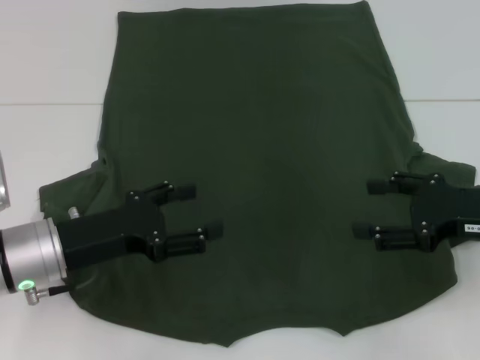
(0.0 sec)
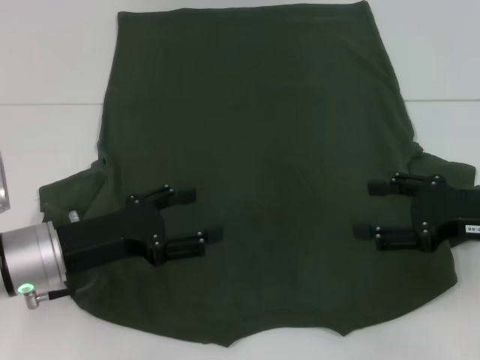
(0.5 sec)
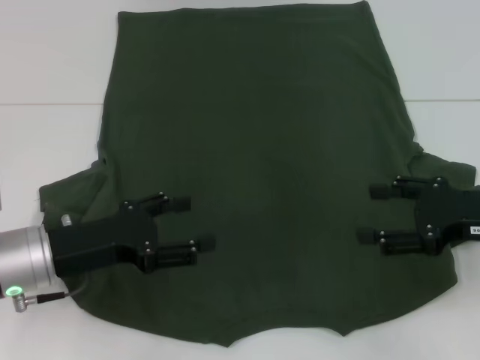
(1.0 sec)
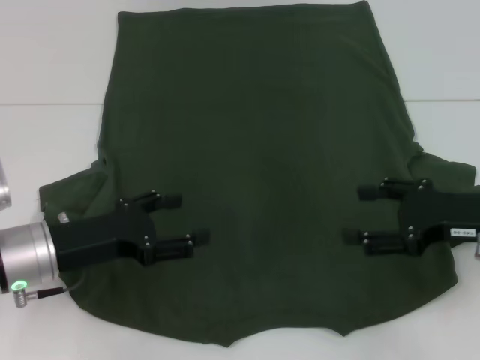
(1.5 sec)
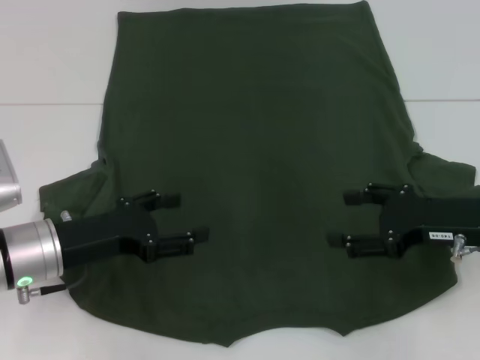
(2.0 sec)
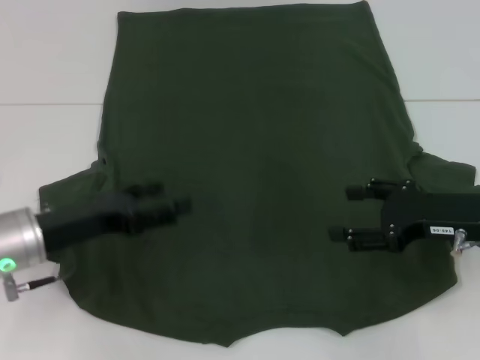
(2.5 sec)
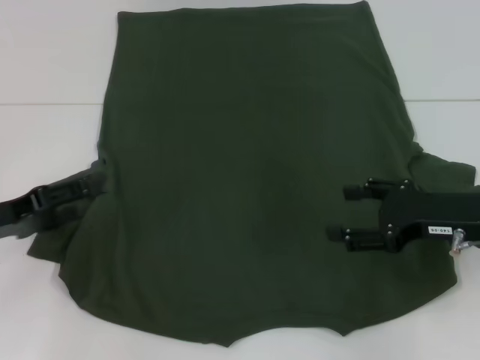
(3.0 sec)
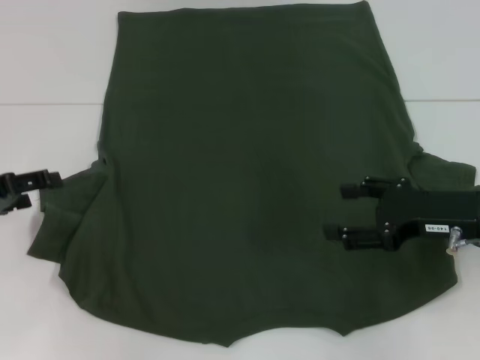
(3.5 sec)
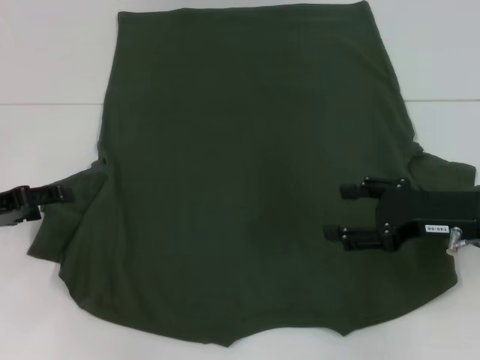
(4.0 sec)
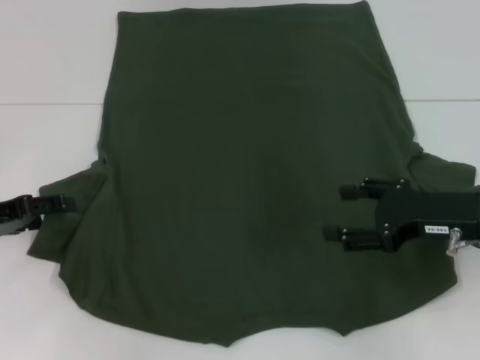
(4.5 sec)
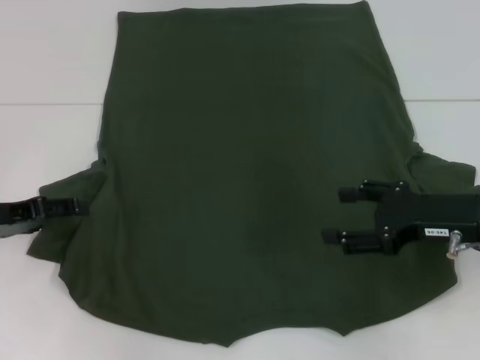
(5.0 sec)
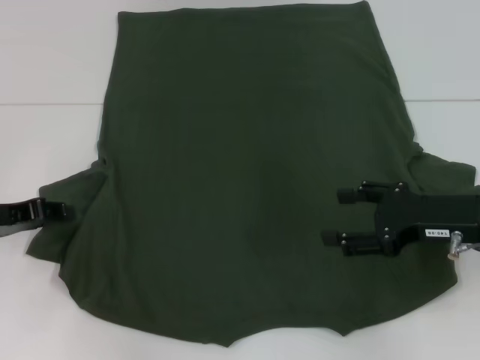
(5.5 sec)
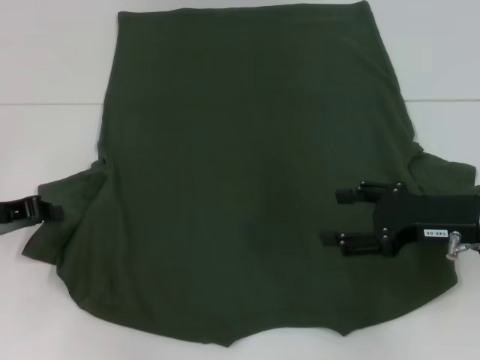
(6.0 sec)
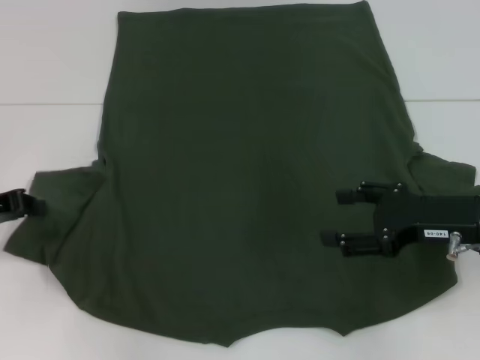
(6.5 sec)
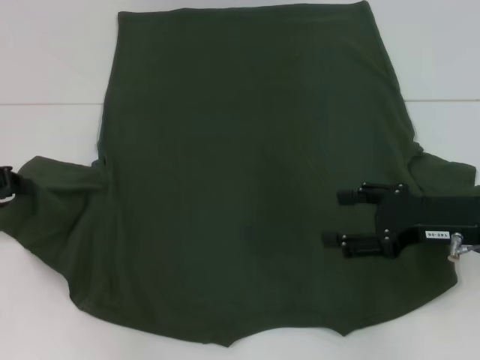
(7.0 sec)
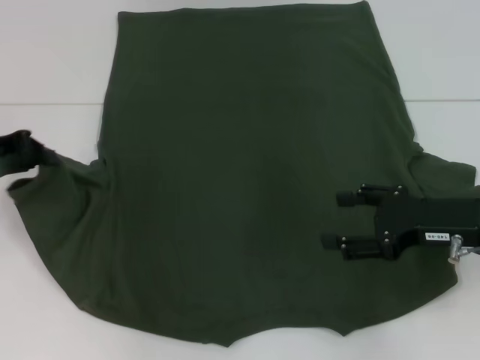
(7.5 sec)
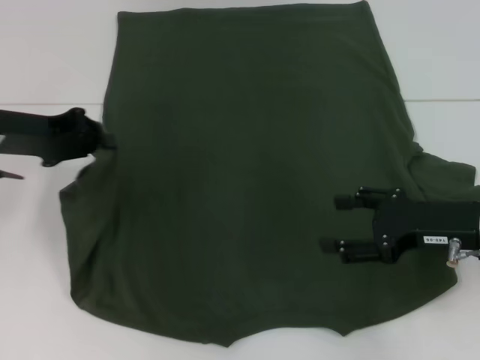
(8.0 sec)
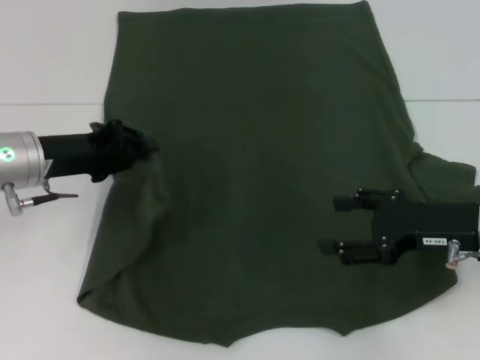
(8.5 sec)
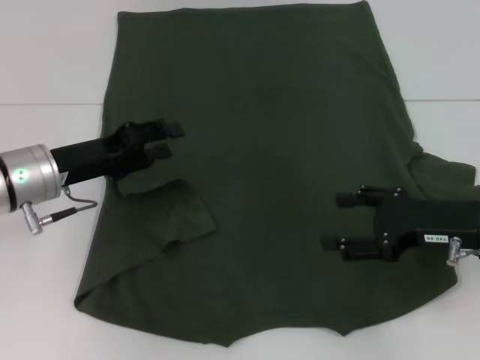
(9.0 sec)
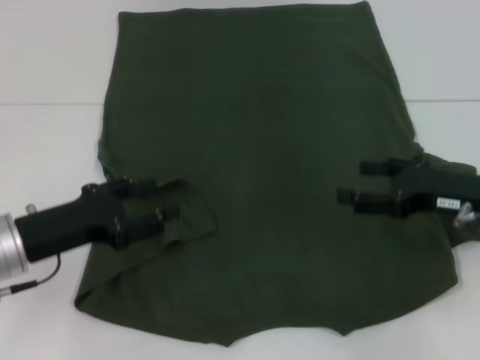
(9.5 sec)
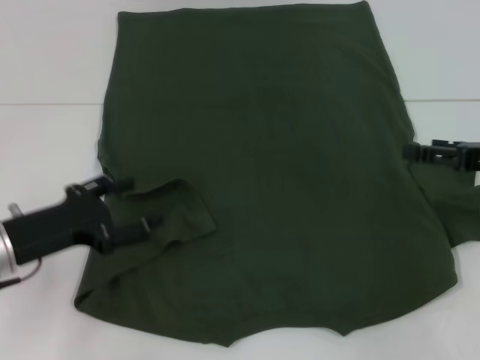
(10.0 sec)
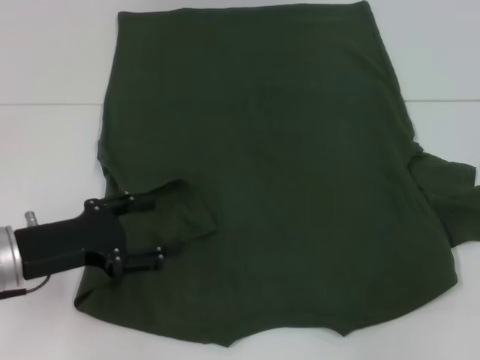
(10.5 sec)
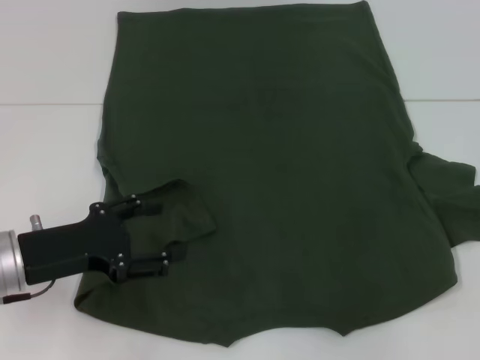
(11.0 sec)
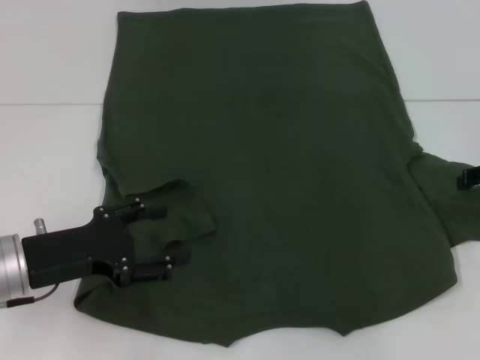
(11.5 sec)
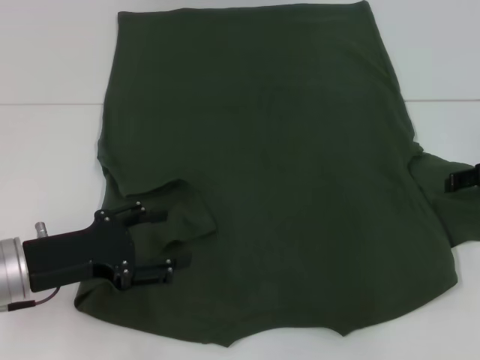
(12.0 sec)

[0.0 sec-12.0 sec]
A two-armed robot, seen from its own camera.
Step, 0.0 sec to 9.0 sec: Fold the bottom left sleeve with your left hand.
0.0 sec to 2.0 sec: The grippers move only a little.
2.0 sec to 4.0 sec: The left gripper heads to the left, covering about 10 cm.
4.0 sec to 6.0 sec: The left gripper closes its fingers.
6.0 sec to 8.0 sec: The left gripper moves upward and forward, approximately 10 cm.
8.0 sec to 10.0 sec: The right gripper shifts some 5 cm to the right, while the left gripper heads backward and downward, covering roughly 15 cm, and opens its fingers.
10.0 sec to 12.0 sec: The right gripper shifts approximately 5 cm forward.

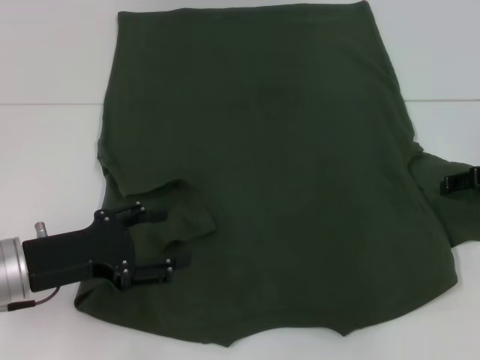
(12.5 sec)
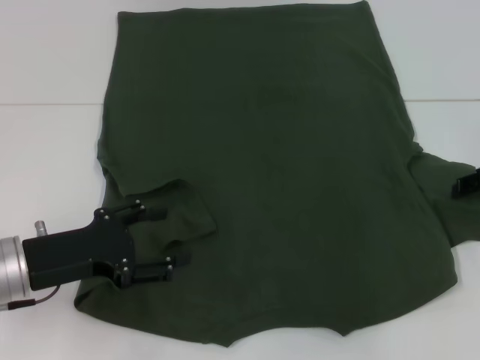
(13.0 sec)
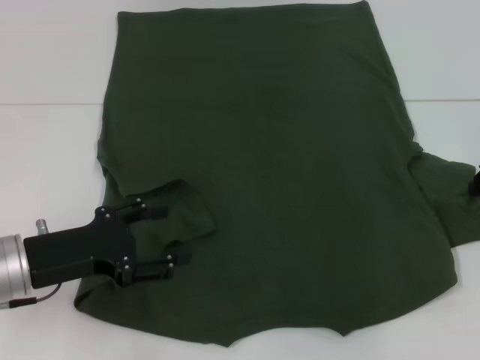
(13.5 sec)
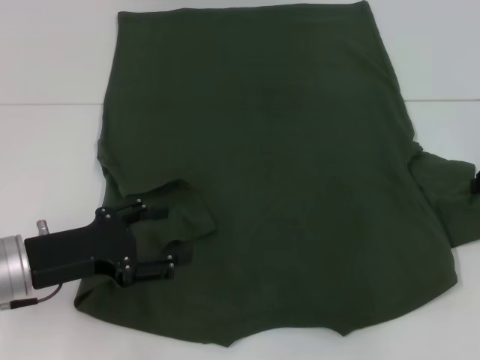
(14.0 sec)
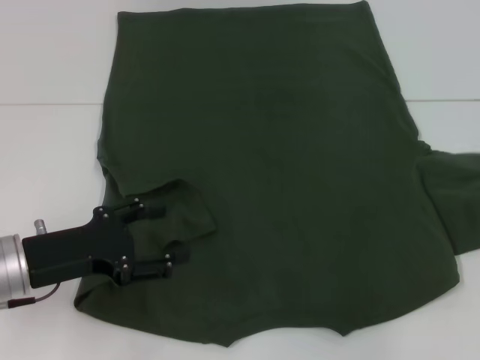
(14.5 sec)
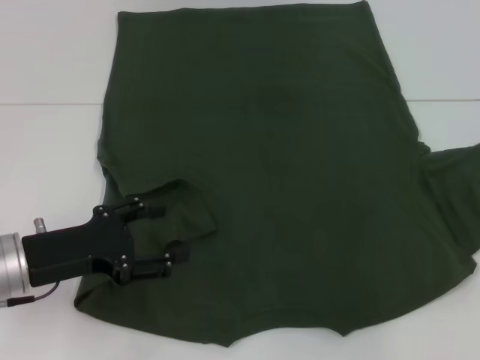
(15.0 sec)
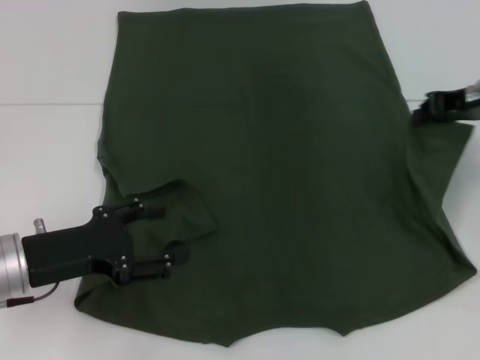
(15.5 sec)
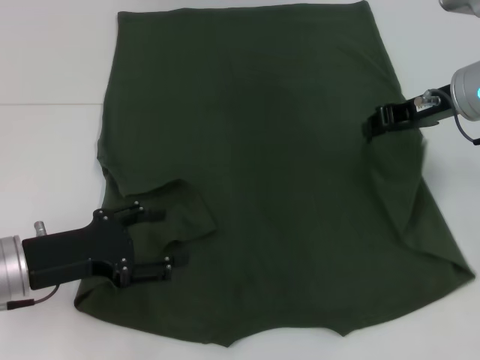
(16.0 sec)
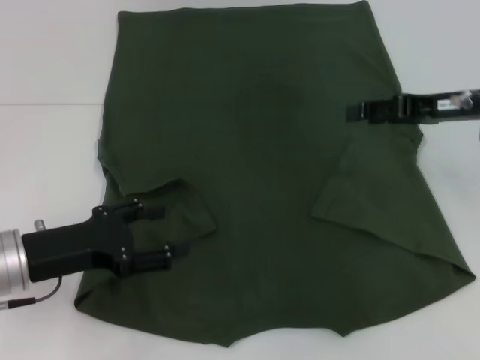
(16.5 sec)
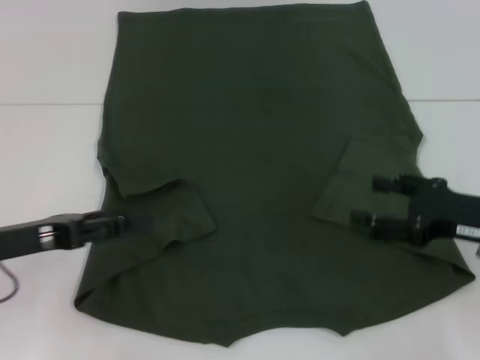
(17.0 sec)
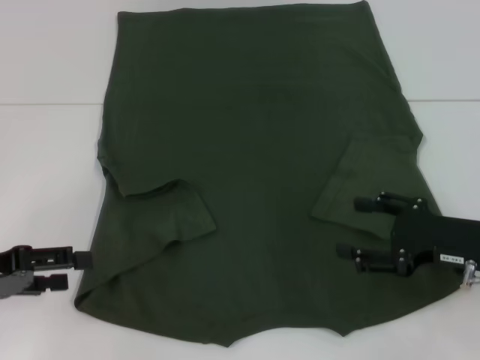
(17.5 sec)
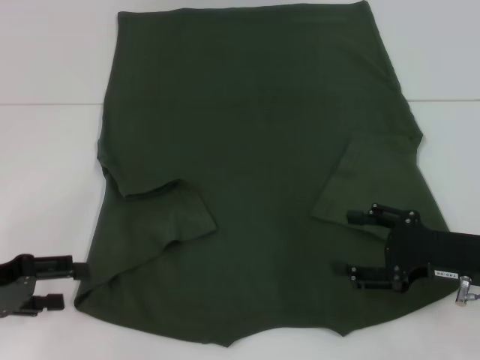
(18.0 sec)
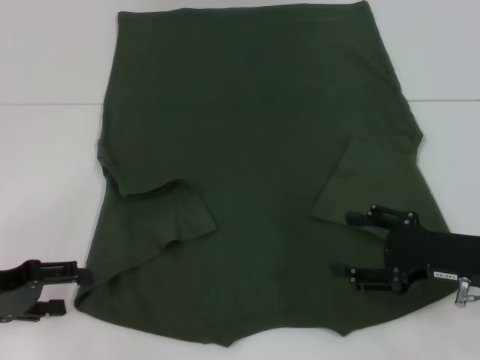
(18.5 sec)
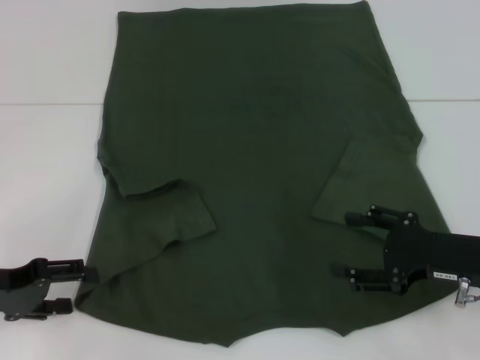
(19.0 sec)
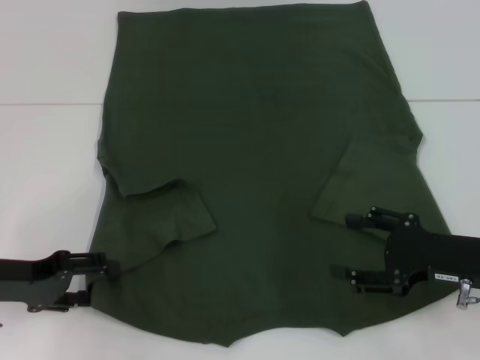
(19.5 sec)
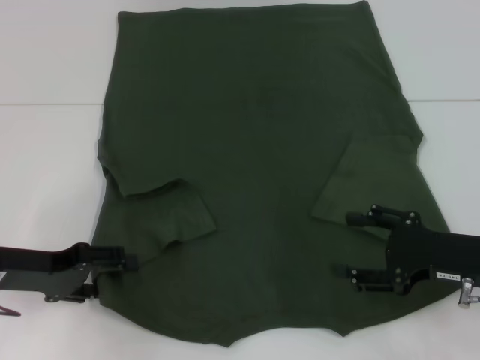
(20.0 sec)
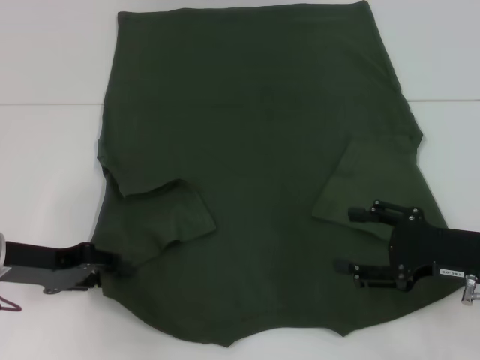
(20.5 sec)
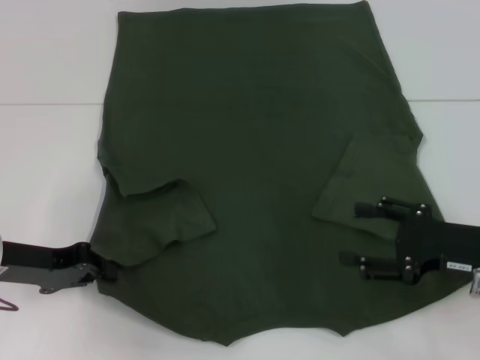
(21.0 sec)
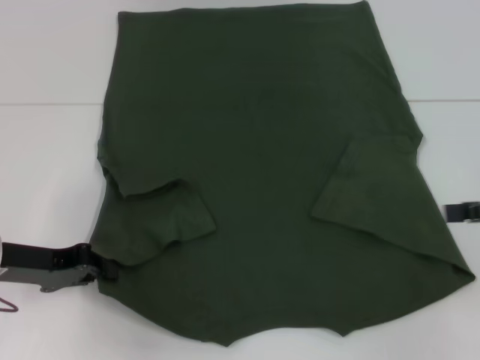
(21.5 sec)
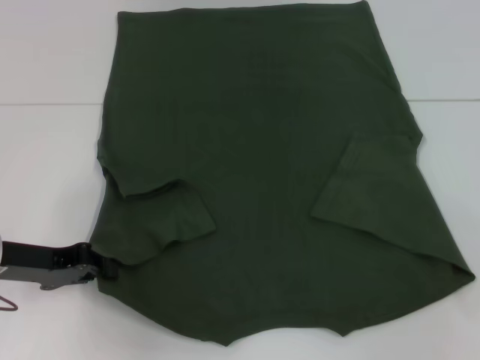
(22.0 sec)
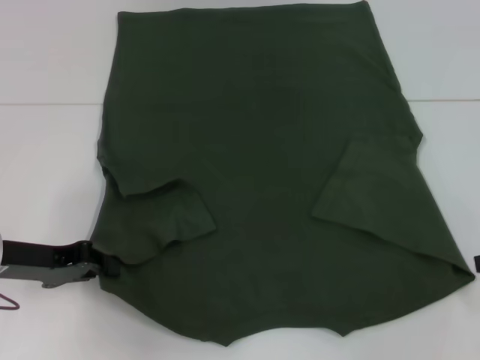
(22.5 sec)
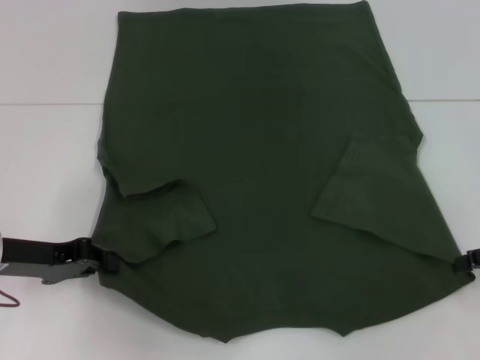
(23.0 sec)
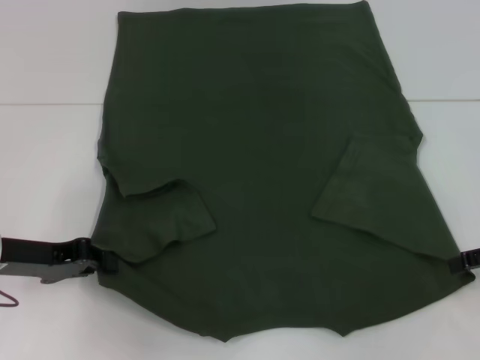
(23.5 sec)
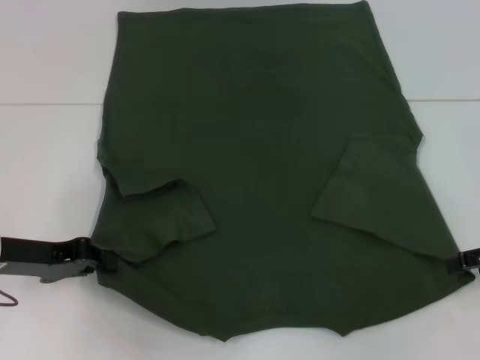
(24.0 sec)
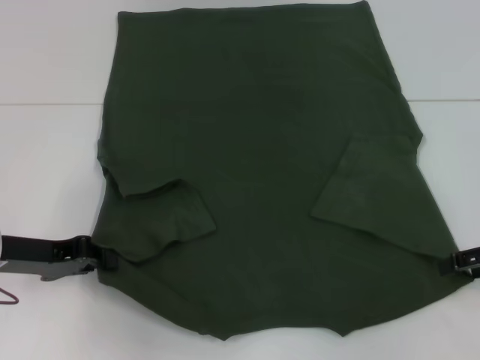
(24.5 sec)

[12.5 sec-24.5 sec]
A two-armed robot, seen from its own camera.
Step, 12.5 sec to 16.5 sec: Fold the bottom right sleeve with your right hand.
Step, 17.0 sec to 22.5 sec: Grab the bottom left corner with your left hand.
12.5 sec to 14.5 sec: The right gripper closes its fingers.
14.5 sec to 16.5 sec: The right gripper moves to the left, approximately 10 cm, and opens.
16.5 sec to 18.5 sec: The left gripper shifts approximately 10 cm to the left. The right gripper travels backward and downward by some 15 cm, and opens up.
18.5 sec to 20.5 sec: The left gripper shifts by roughly 5 cm.
20.5 sec to 22.5 sec: The left gripper closes. The right gripper travels to the right and upward by roughly 15 cm.
22.5 sec to 24.5 sec: There are only small adjustments of the grippers.

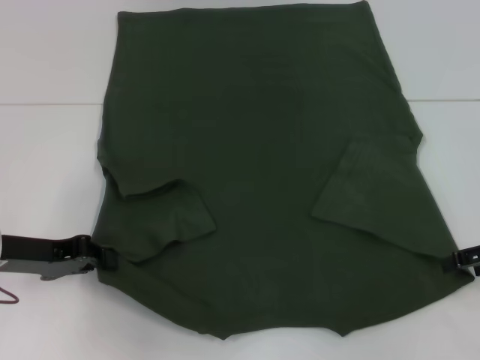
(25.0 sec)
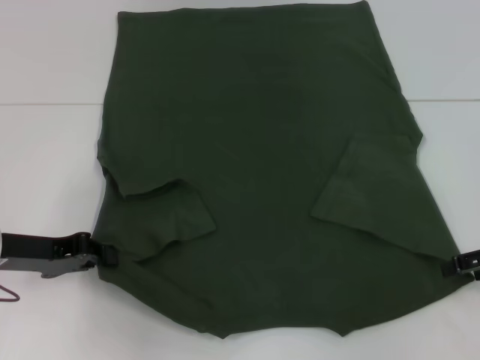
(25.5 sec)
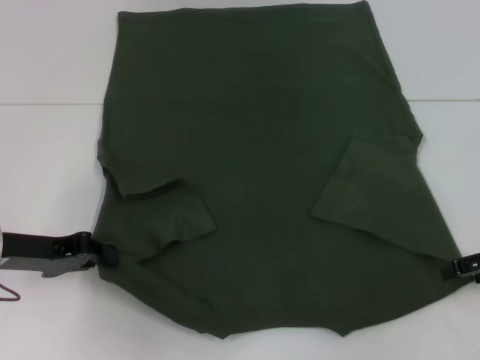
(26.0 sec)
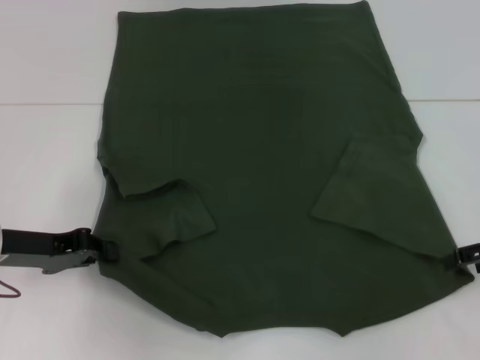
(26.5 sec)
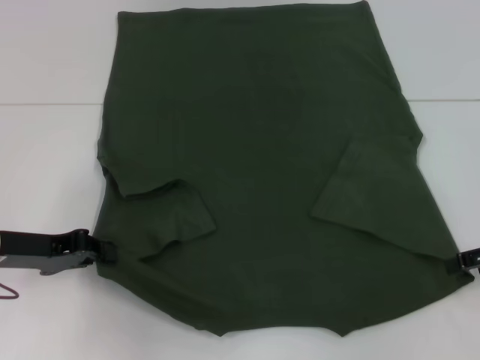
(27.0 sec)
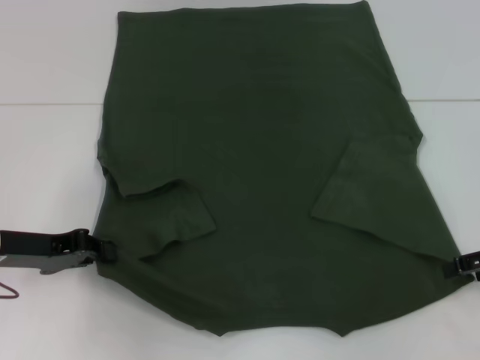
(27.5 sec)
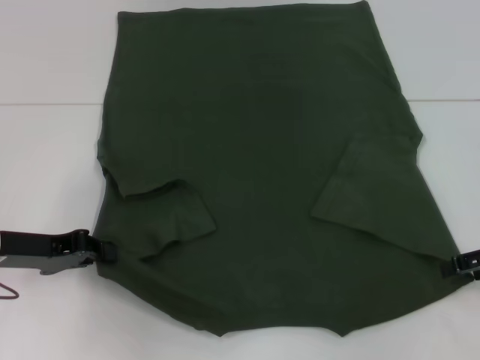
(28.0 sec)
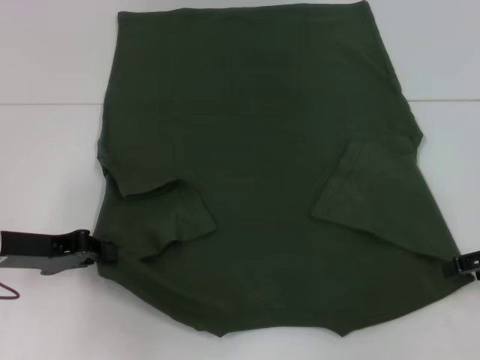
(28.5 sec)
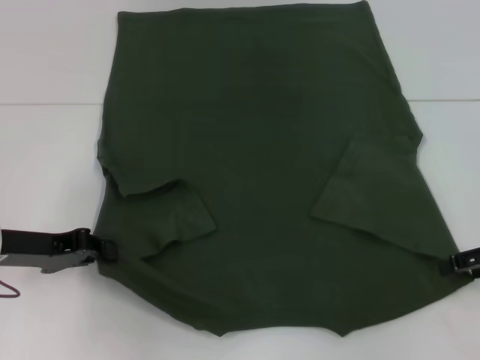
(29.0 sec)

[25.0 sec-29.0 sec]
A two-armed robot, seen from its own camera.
25.0 sec to 29.0 sec: Both grippers stay put.
